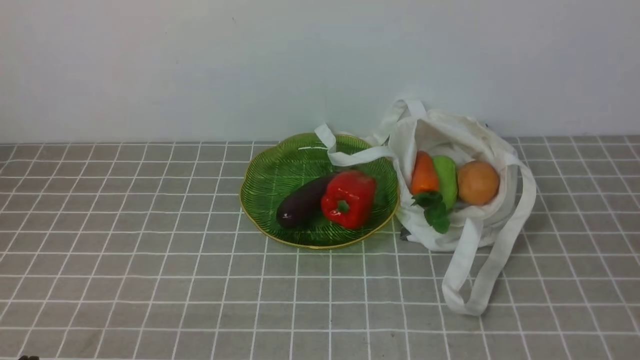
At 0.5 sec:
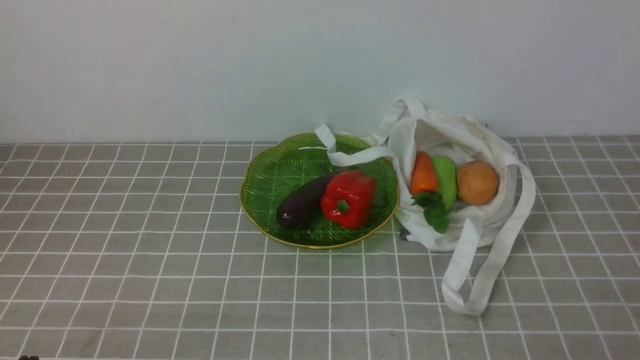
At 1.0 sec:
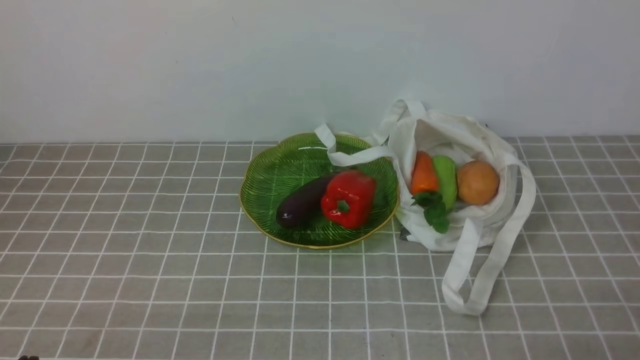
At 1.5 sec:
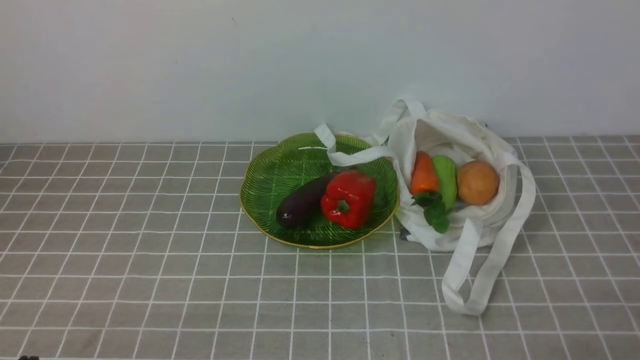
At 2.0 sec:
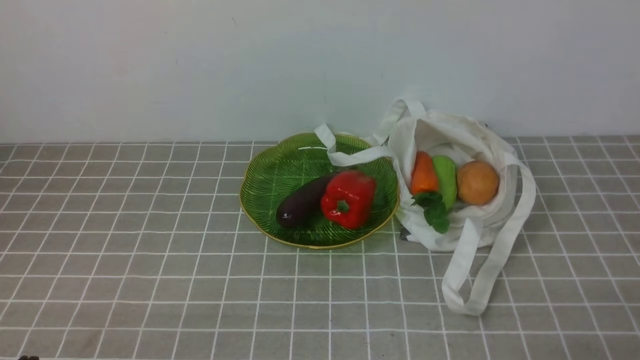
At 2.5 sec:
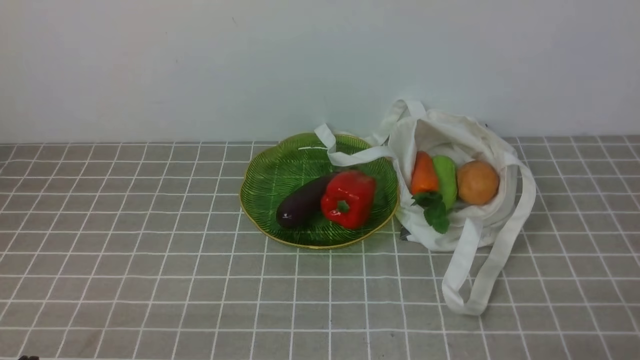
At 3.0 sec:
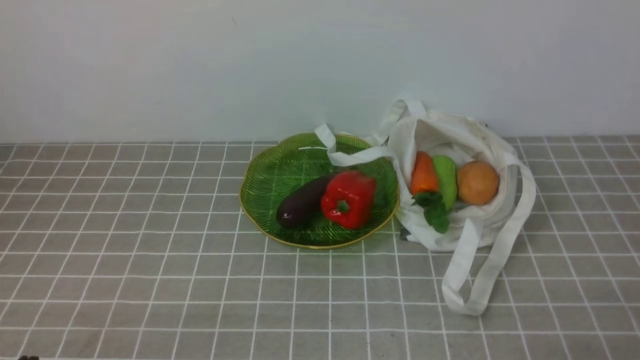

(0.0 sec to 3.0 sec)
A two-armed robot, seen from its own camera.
Task of the whole recording: take vegetables from bag on grey coffee tablecloth place on plate.
1.5 sec - 3.0 sec: Both grippers stay put.
